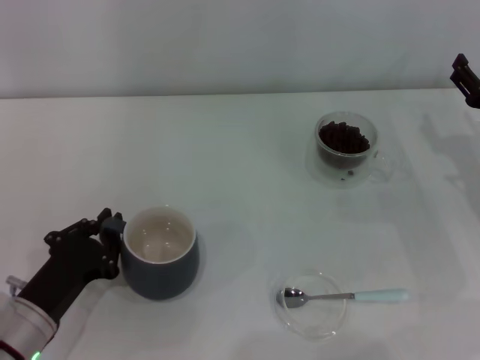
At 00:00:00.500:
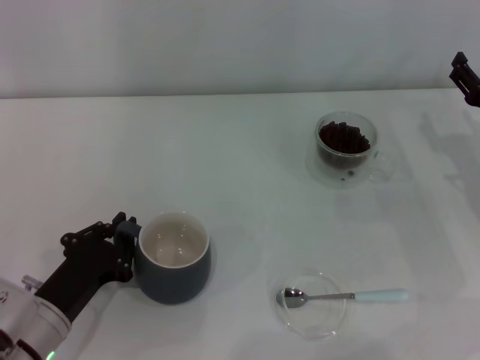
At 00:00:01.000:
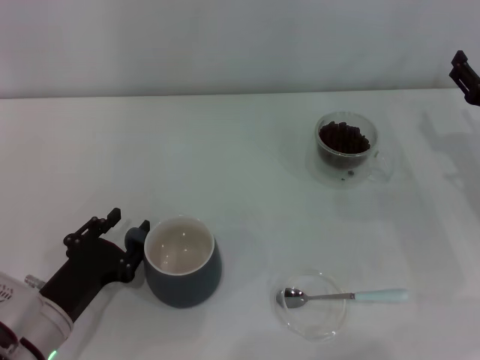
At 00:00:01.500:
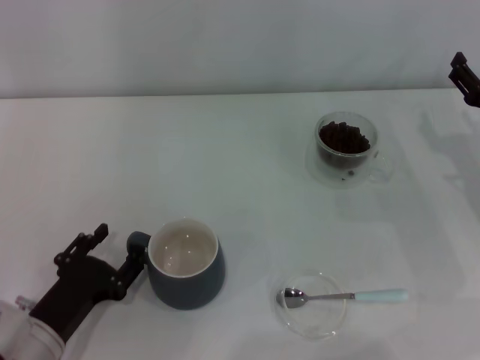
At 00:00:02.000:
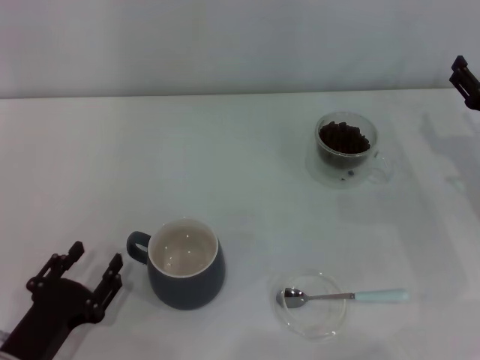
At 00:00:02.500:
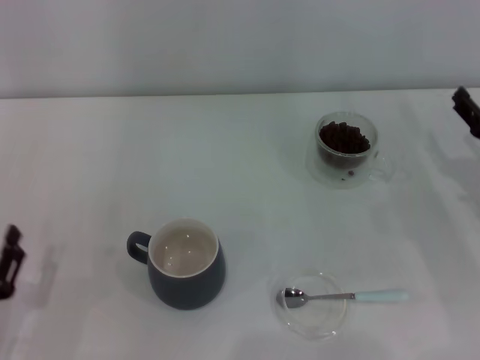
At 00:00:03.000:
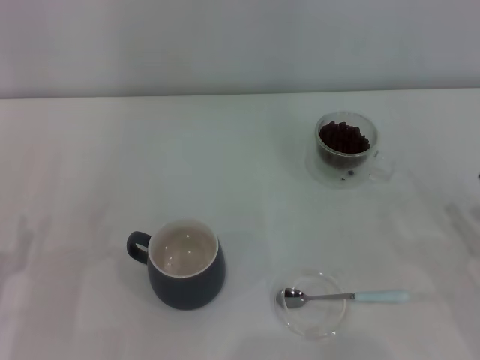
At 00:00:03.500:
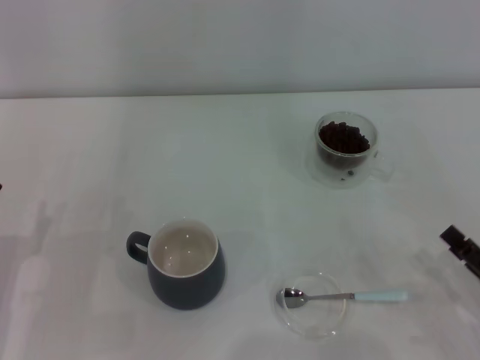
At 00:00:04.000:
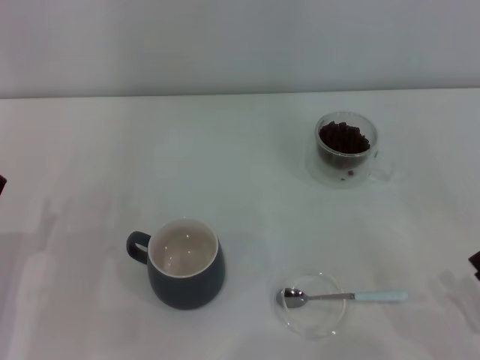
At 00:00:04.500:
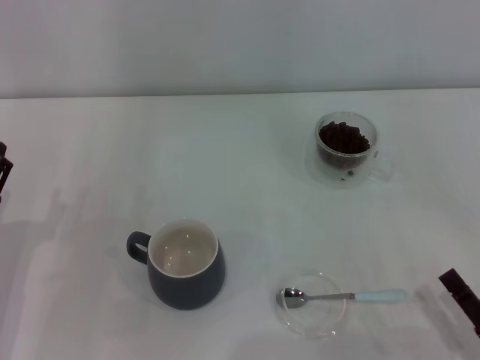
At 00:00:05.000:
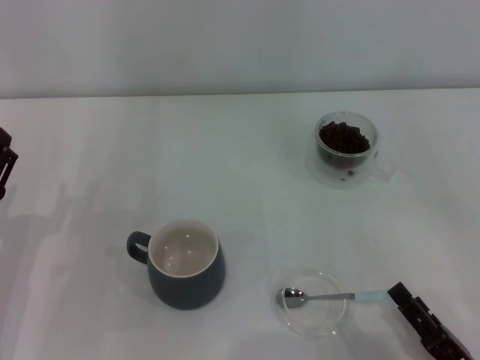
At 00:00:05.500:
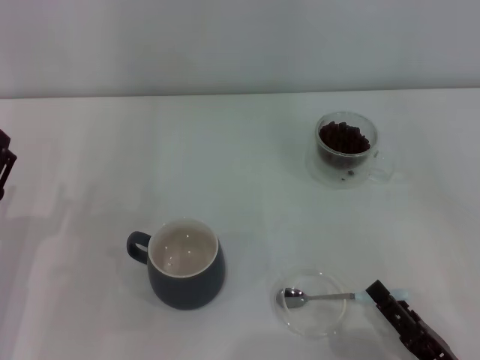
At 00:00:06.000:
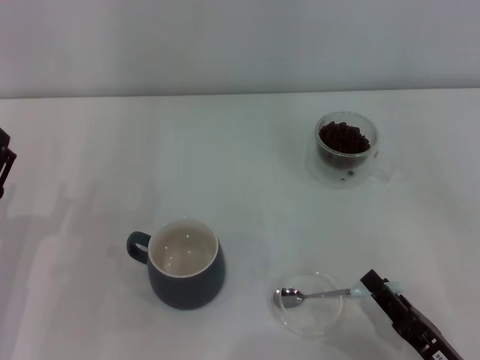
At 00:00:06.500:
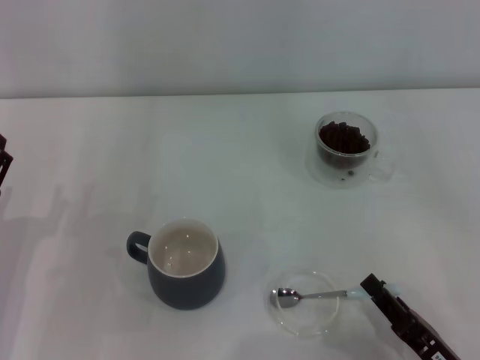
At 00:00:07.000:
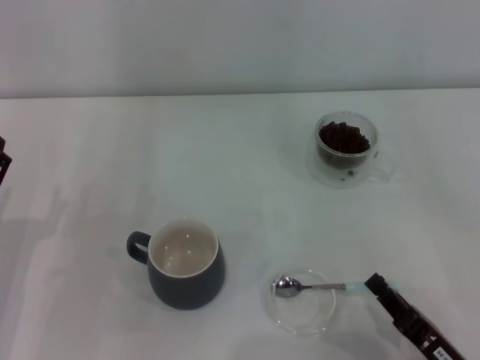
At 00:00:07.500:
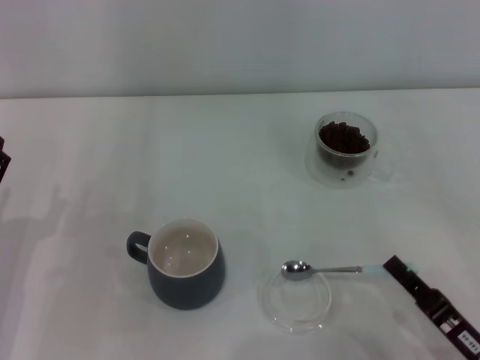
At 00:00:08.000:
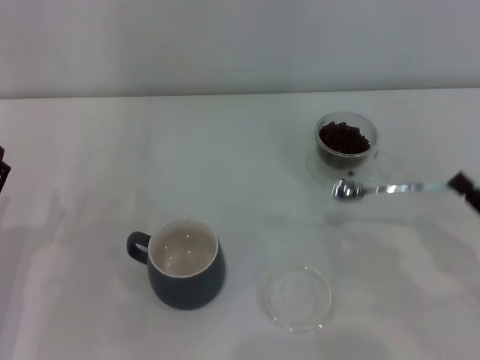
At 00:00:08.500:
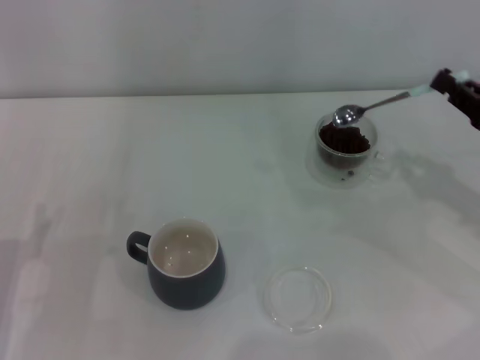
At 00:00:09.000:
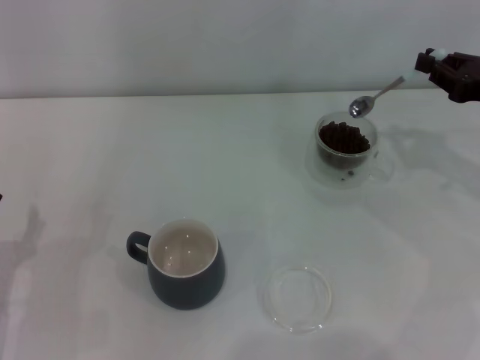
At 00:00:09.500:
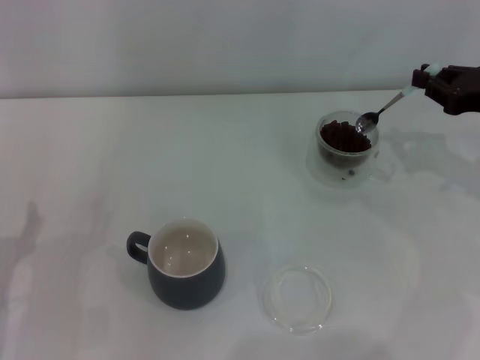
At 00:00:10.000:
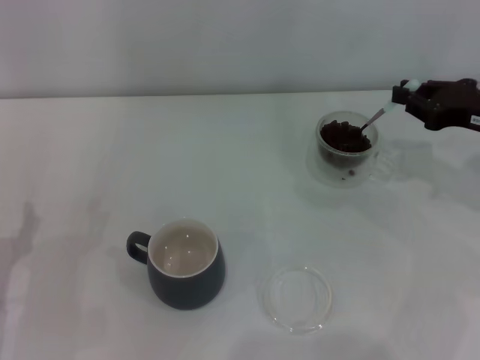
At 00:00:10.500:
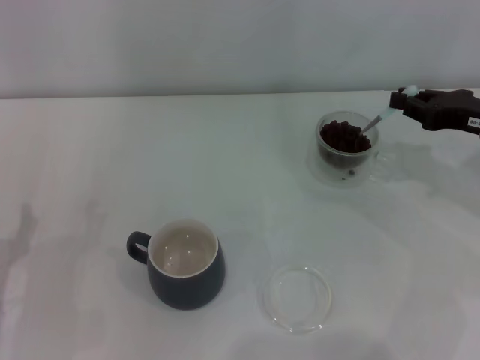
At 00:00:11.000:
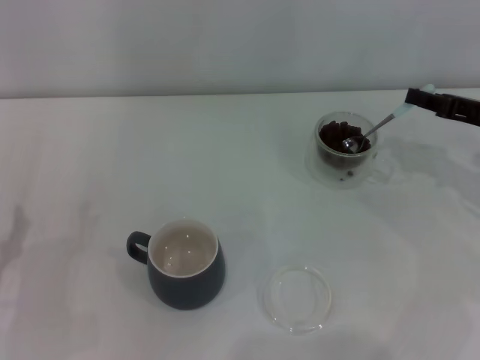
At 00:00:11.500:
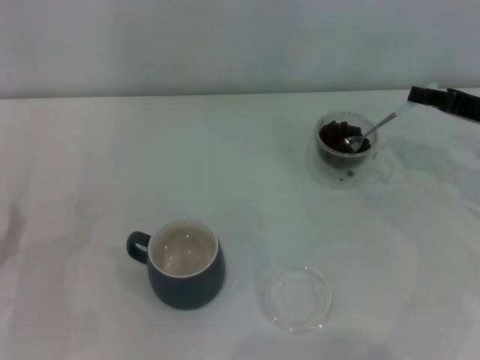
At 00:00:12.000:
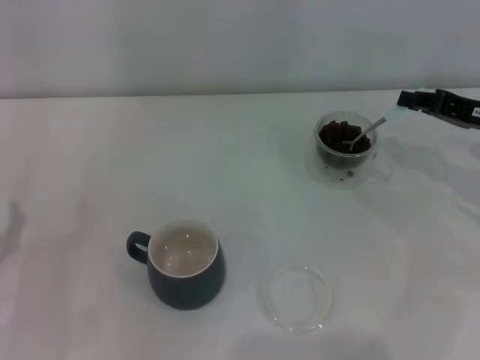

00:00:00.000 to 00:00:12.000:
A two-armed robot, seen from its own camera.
Task of the whole recording: Use a blue spoon to take out the coffee beans from the glass and pour them into the gray cup.
Step, 00:00:00.000 to 00:00:02.000: Move the cup to the center of view with the left gripper.
Step, 00:00:02.500 to 00:00:07.500: Pick up the spoon with the right gripper.
00:00:00.000 to 00:00:02.000: The left gripper opens up.
00:00:02.000 to 00:00:04.000: The left gripper changes place by approximately 10 cm. The right gripper moves backward, some 25 cm.
00:00:04.000 to 00:00:06.000: The right gripper heads to the left, covering some 10 cm.
00:00:06.000 to 00:00:08.000: The right gripper heads to the right and forward, covering some 10 cm, and closes its fingers.
00:00:08.000 to 00:00:10.000: The right gripper goes roughly 20 cm forward and upward.

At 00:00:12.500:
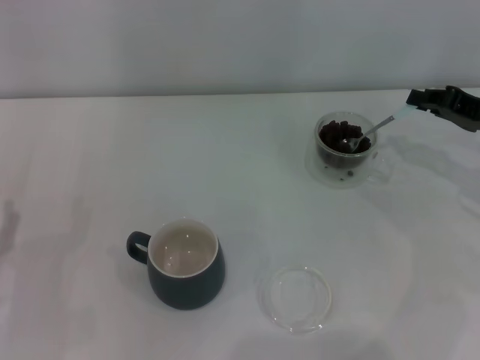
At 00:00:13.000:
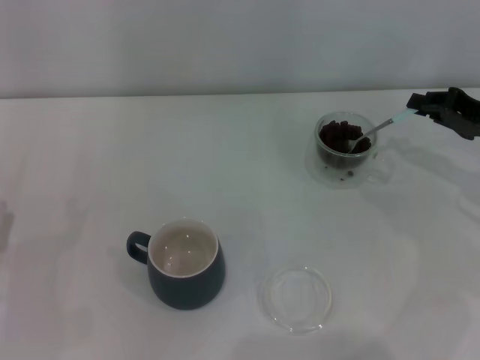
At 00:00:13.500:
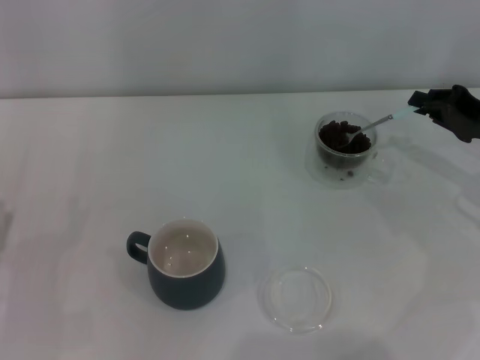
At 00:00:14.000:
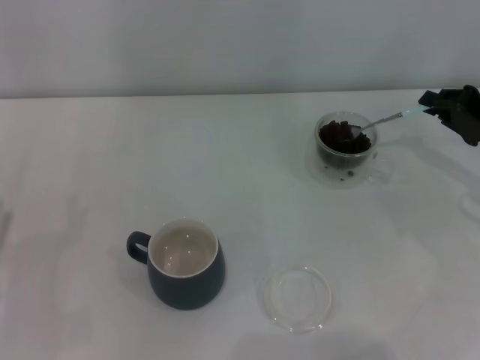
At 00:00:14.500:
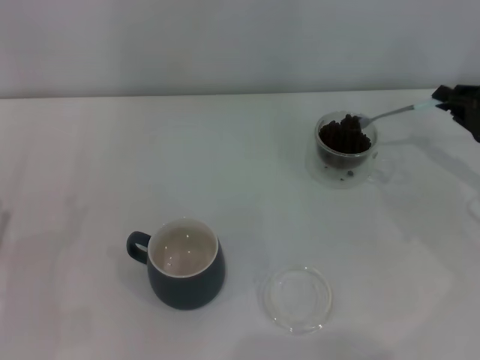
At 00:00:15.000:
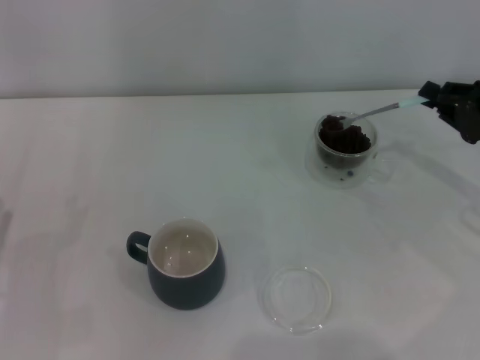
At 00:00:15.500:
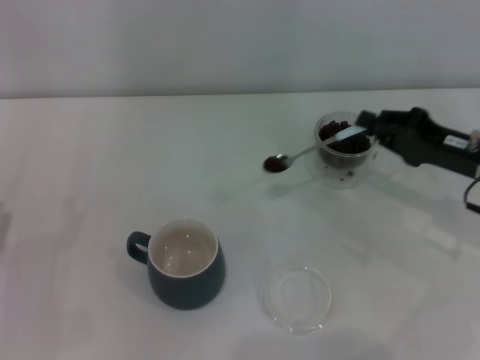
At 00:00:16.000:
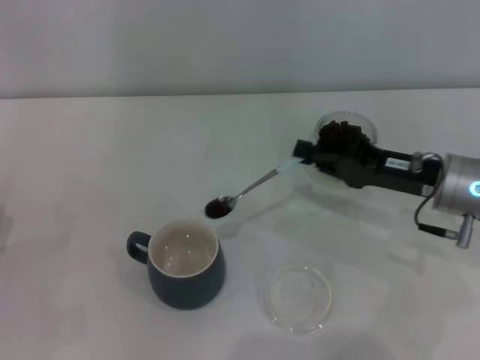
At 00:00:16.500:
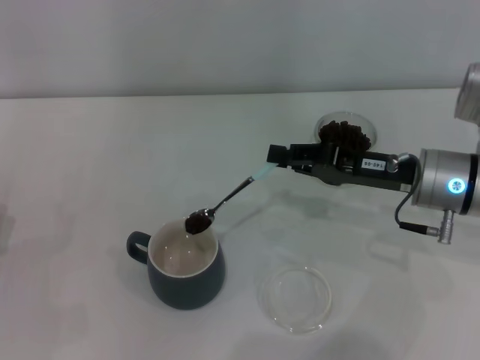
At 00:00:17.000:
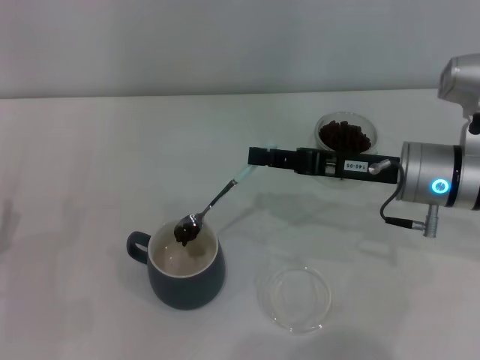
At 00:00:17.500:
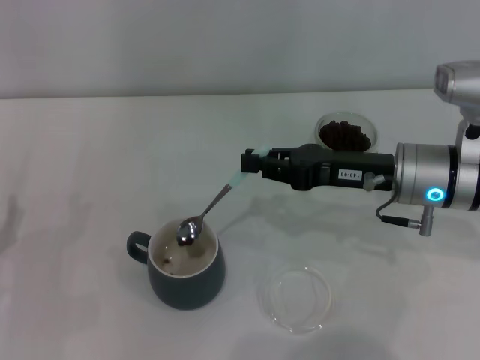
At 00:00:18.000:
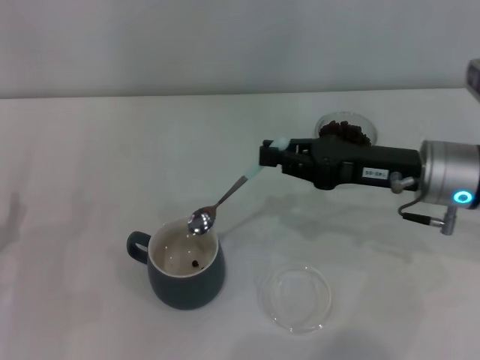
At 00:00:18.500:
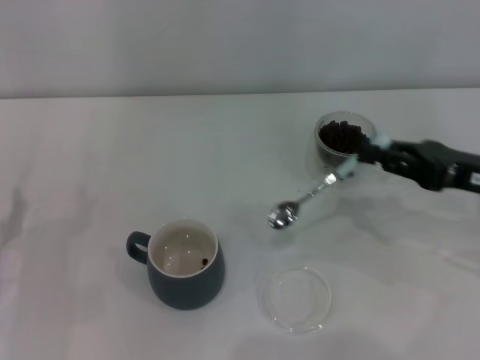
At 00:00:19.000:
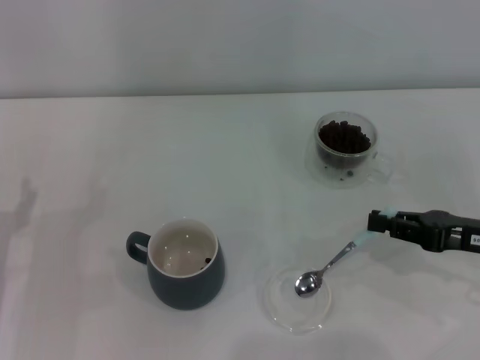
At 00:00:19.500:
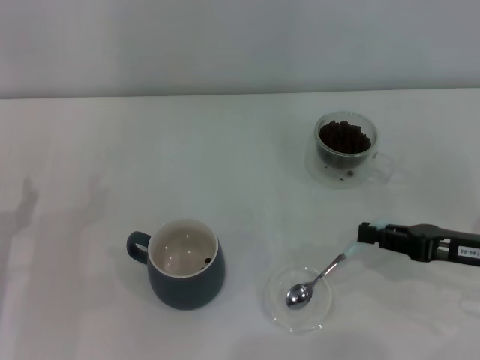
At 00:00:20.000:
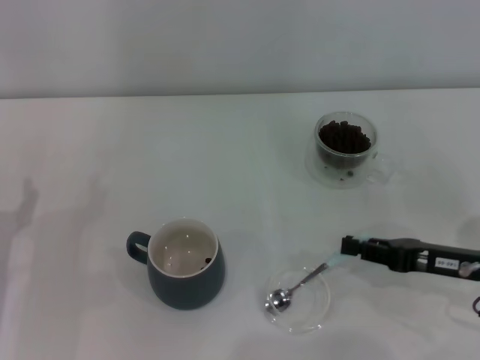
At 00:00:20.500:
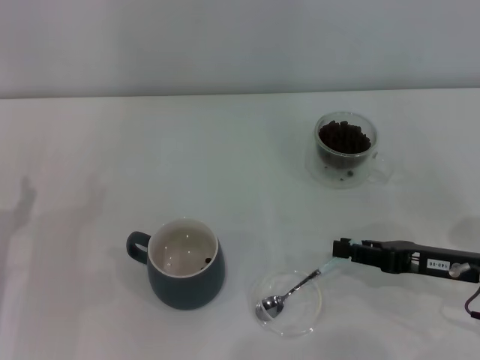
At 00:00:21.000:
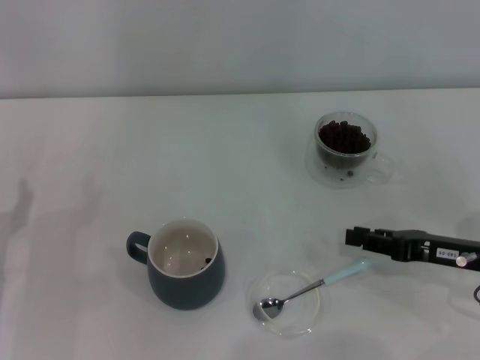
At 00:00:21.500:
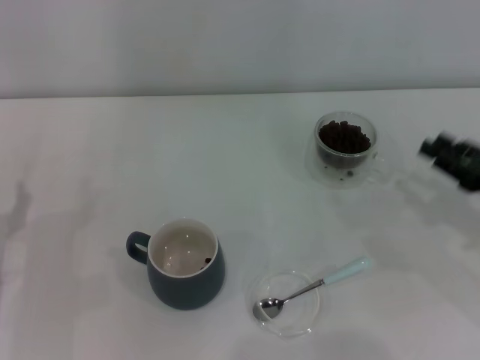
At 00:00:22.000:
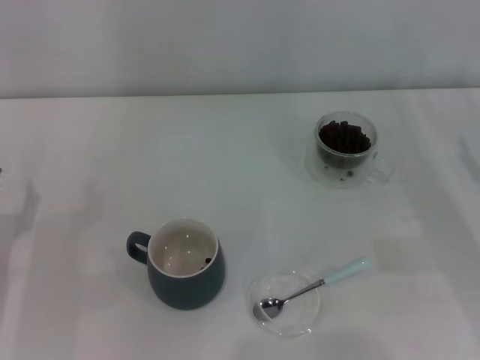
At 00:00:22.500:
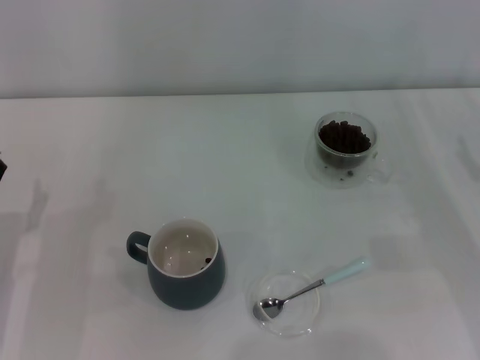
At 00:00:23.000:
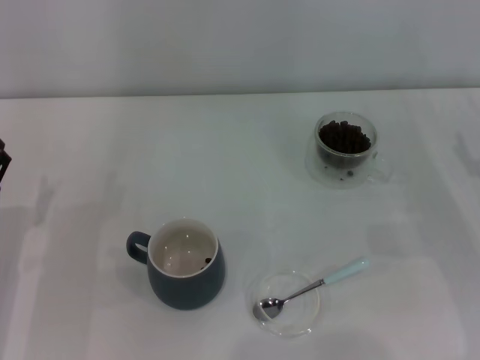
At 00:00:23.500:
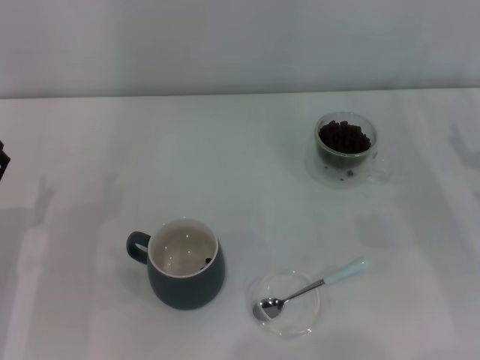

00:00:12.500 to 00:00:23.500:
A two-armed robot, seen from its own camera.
Task of the whole recording: Use a blue spoon to take out the coffee beans from the glass and pour them into the gray cup.
Step, 00:00:12.500 to 00:00:18.000: Scoop a spoonful of beans into the cup with the right gripper.
Step, 00:00:18.500 to 00:00:21.000: Place the spoon back in its original place with the right gripper.
00:00:14.500 to 00:00:16.000: The right gripper is displaced to the left by some 10 cm.
00:00:18.000 to 00:00:20.000: The right gripper is displaced to the right, downward and backward by approximately 10 cm.
00:00:20.000 to 00:00:21.500: The right gripper moves to the right, approximately 5 cm.
00:00:21.500 to 00:00:23.500: The right gripper opens.
